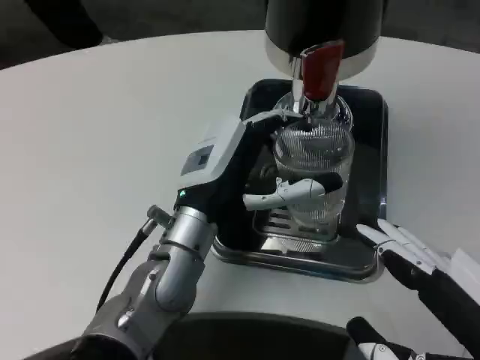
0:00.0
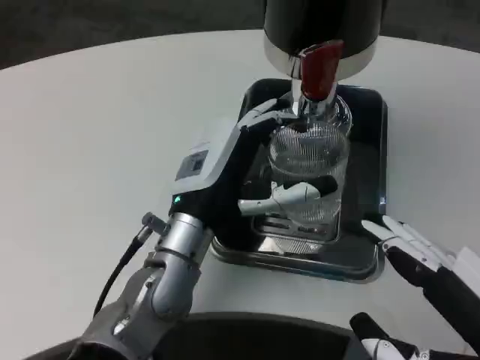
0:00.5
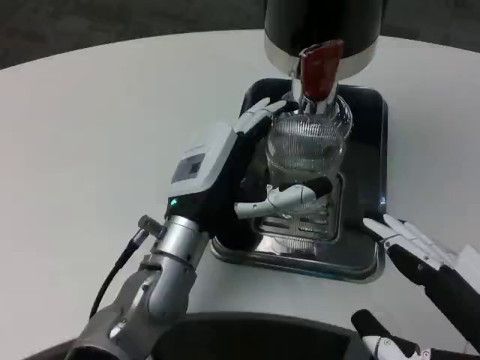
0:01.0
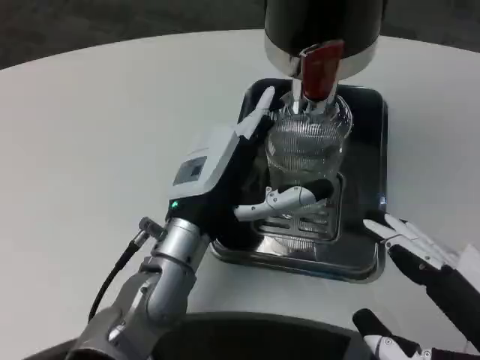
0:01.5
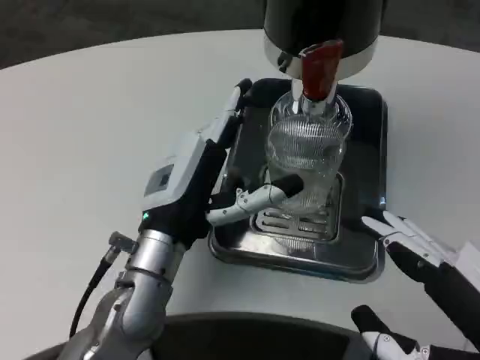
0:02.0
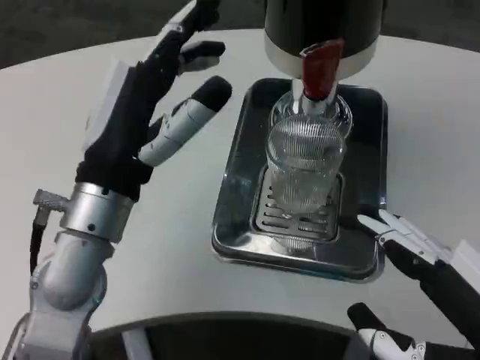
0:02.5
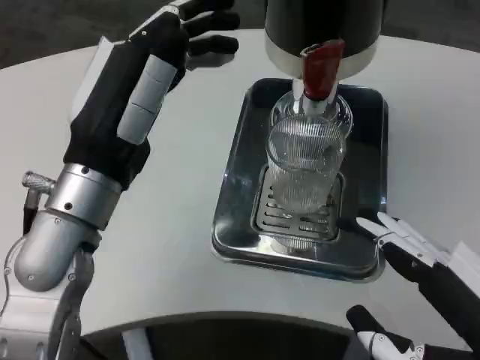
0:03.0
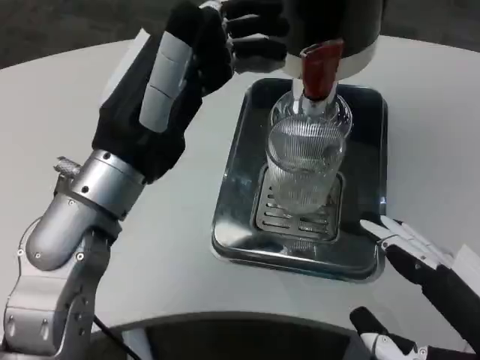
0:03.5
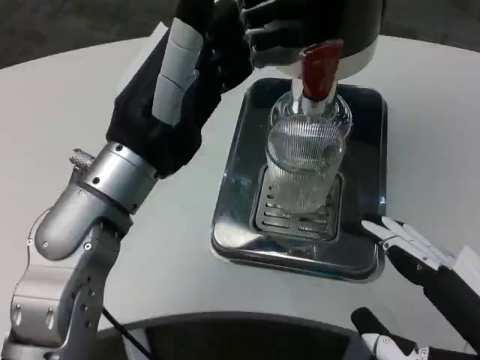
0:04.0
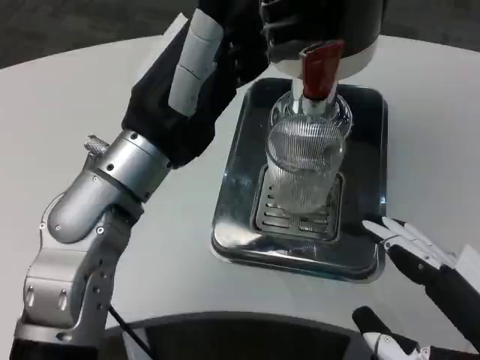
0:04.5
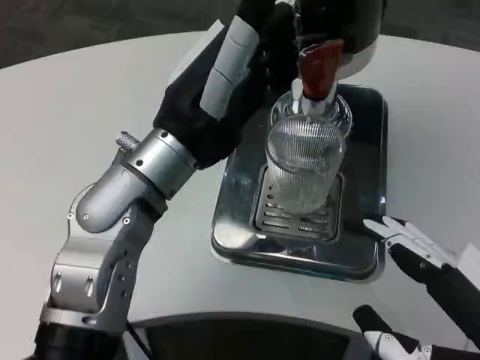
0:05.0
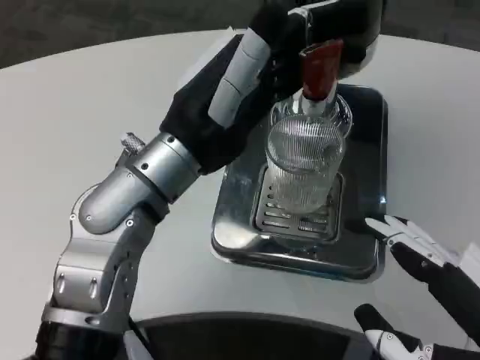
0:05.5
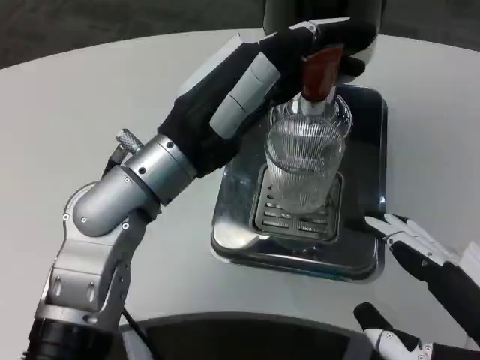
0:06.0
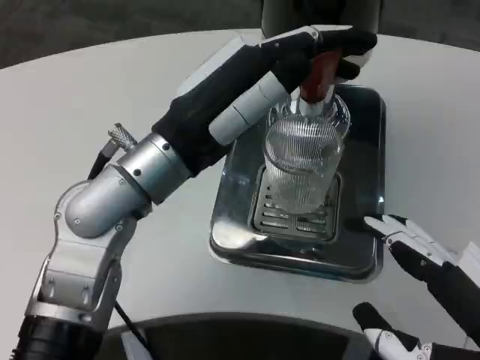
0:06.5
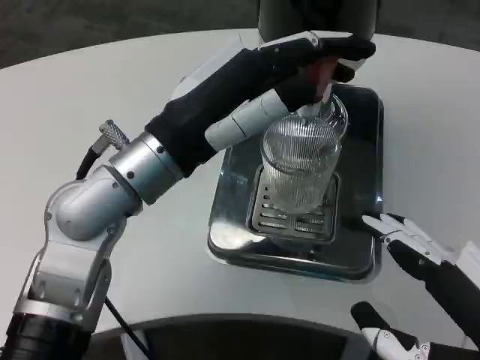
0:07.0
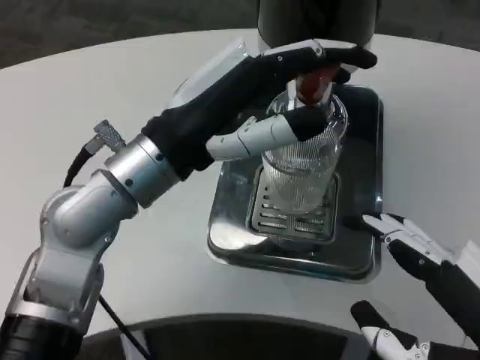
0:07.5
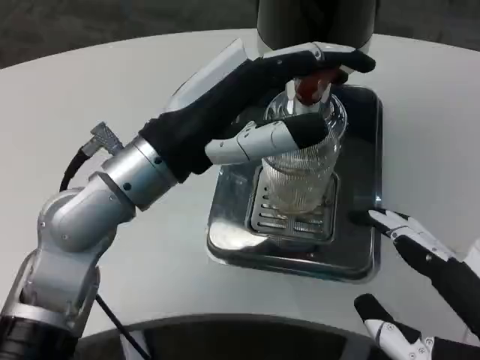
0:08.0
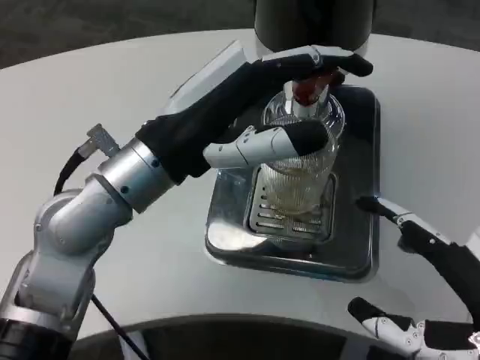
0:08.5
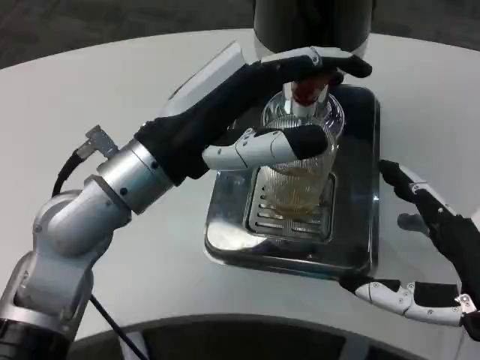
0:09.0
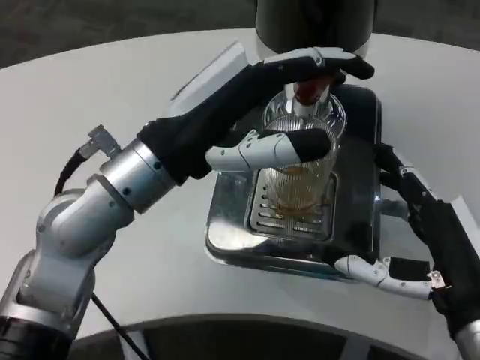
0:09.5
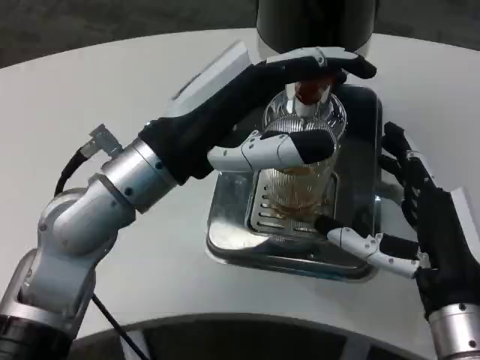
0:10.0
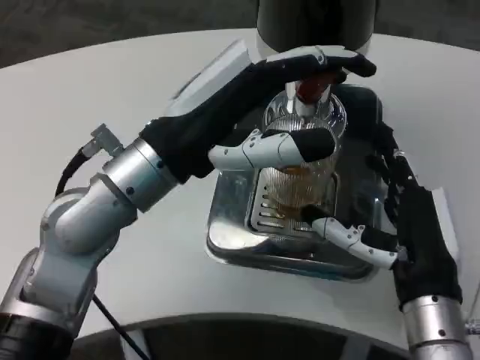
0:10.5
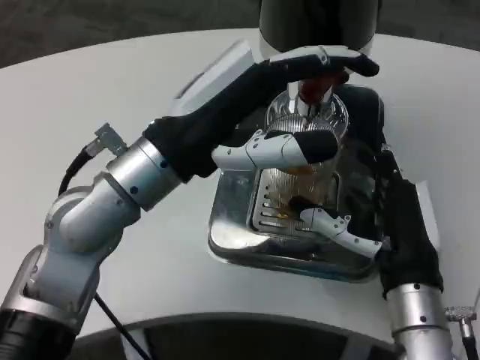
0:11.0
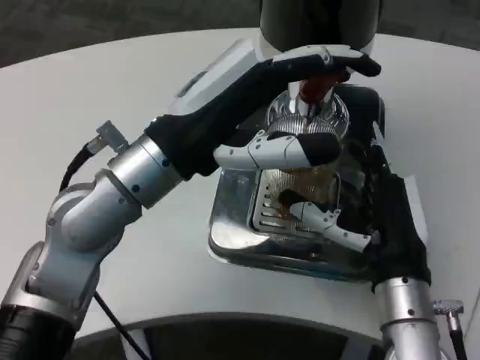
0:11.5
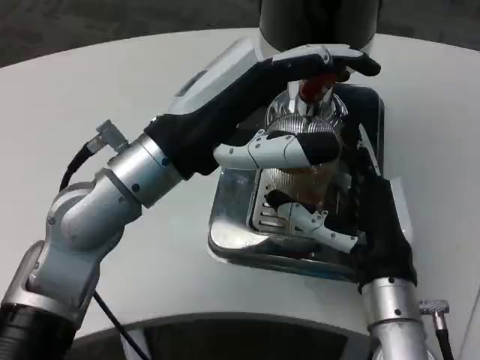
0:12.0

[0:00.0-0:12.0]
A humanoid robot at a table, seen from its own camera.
Task of the whole recording: Grasp the cup under the faucet to collect the drink, then remove the cup.
0:02.0 to 0:04.0: The left hand heads upward, covering approximately 10 cm.
0:08.0 to 0:10.0: The right hand moves forward and downward, about 15 cm.
0:10.0 to 0:12.0: The right hand ends up some 5 cm from where it was.

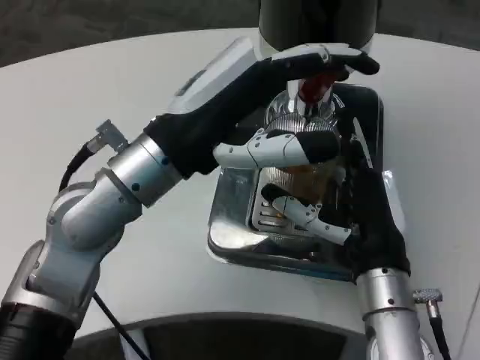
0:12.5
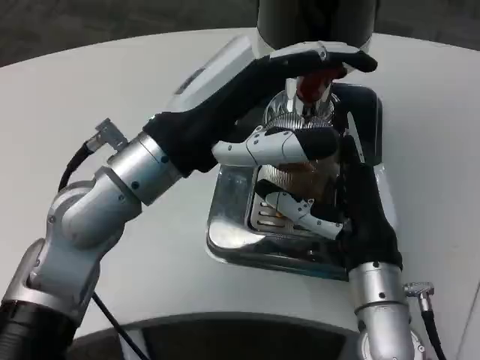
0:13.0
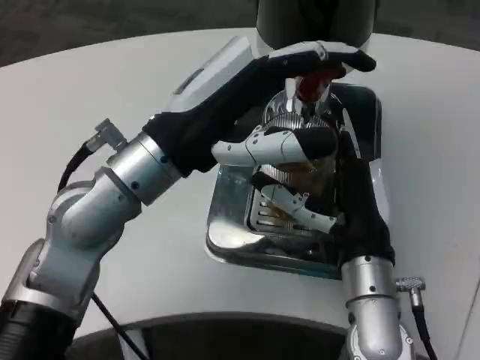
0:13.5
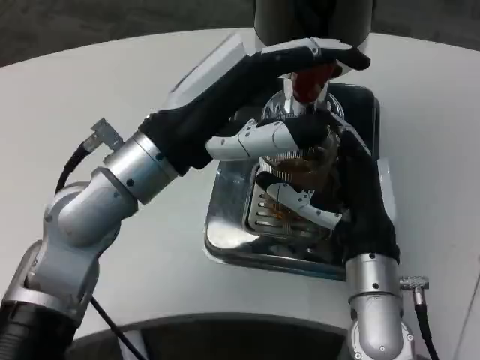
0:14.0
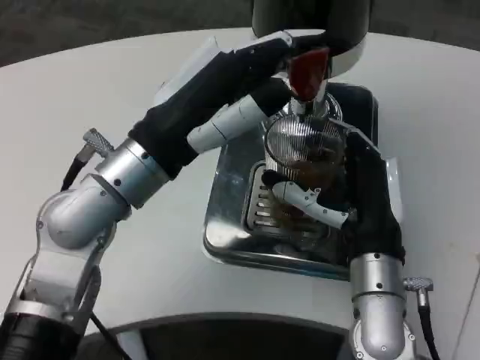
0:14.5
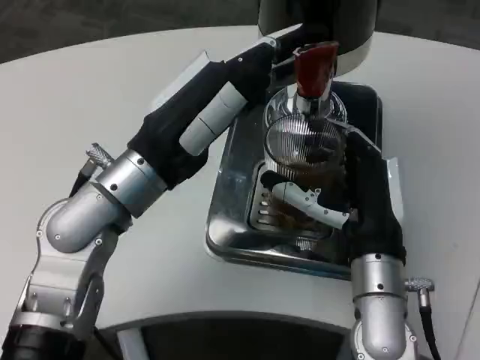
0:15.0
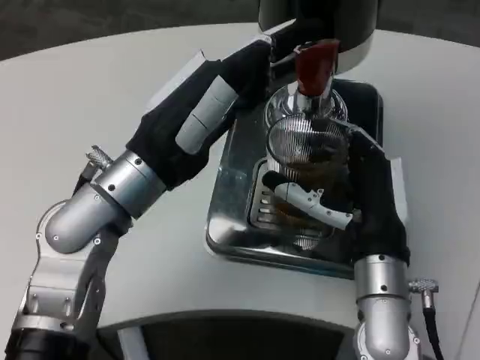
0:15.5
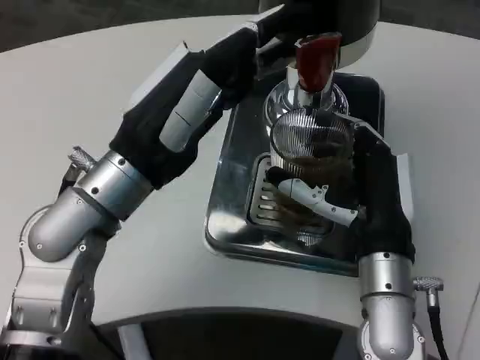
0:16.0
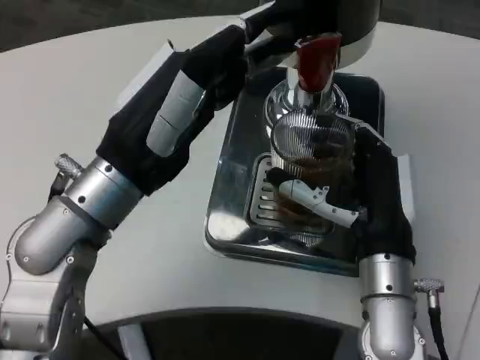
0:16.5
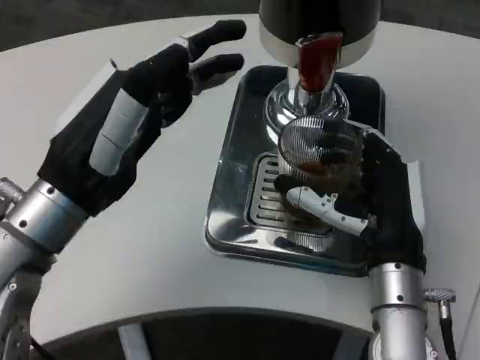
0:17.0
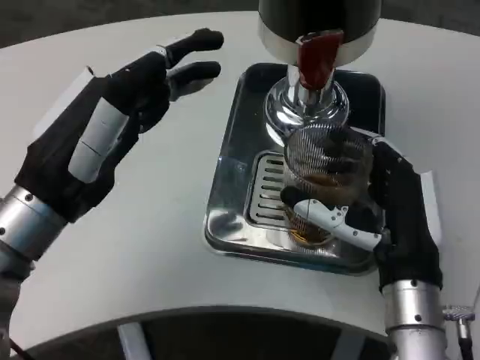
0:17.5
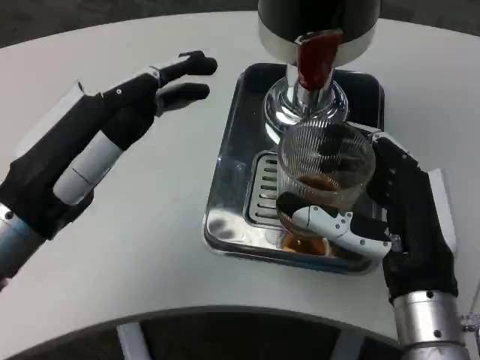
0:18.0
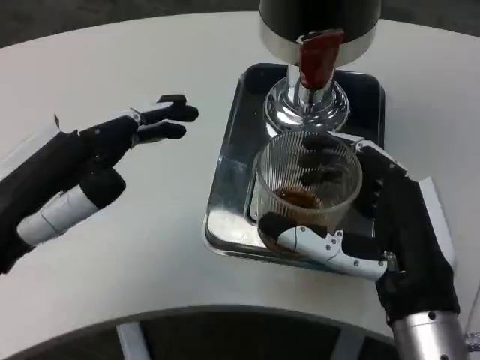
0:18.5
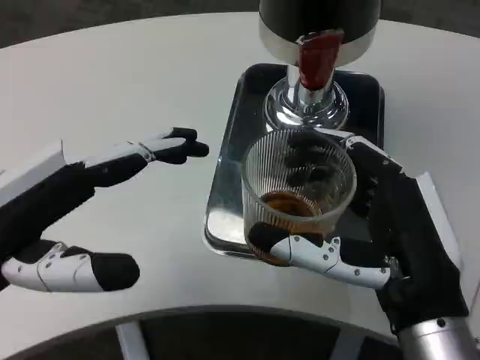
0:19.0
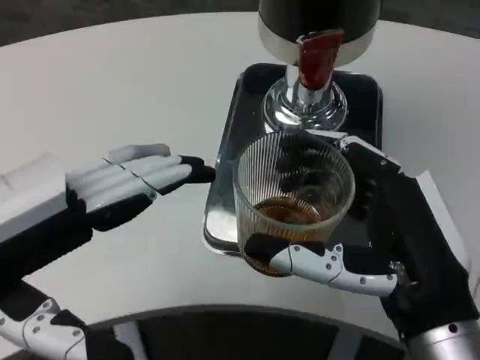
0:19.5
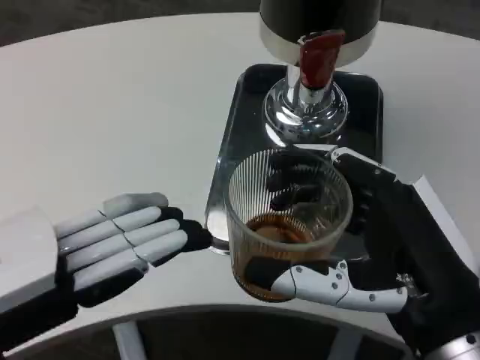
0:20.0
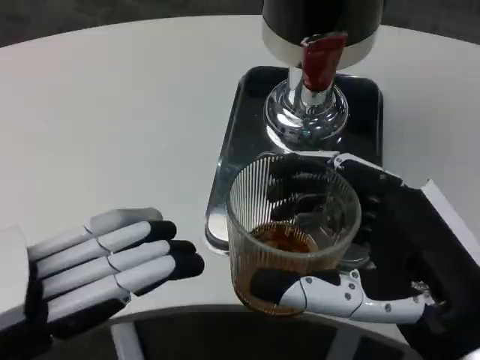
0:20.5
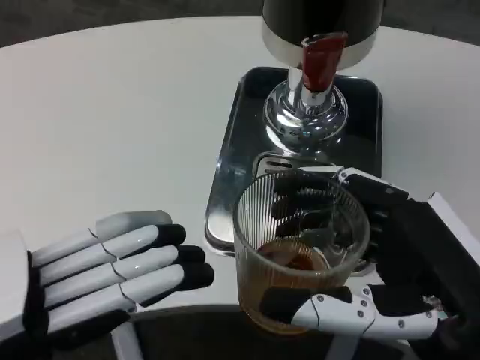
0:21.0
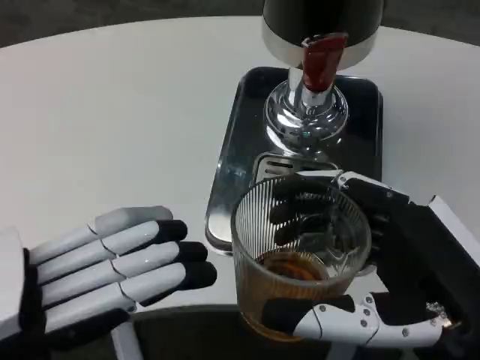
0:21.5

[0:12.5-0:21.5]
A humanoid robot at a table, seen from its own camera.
Task of the whole recording: Grasp the cup under the faucet to collect the drink, then remove the cup.
0:14.5 to 0:17.0: The left hand shifts about 5 cm to the left.
0:17.0 to 0:19.5: The left hand moves backward and to the left, roughly 10 cm; the right hand shifts some 10 cm backward and upward.
0:19.5 to 0:21.5: The right hand changes place by roughly 5 cm.

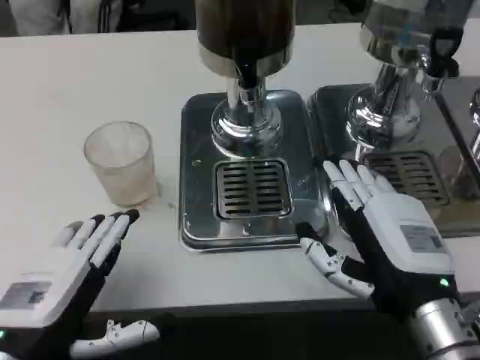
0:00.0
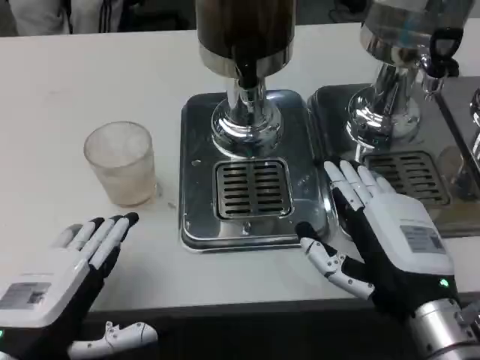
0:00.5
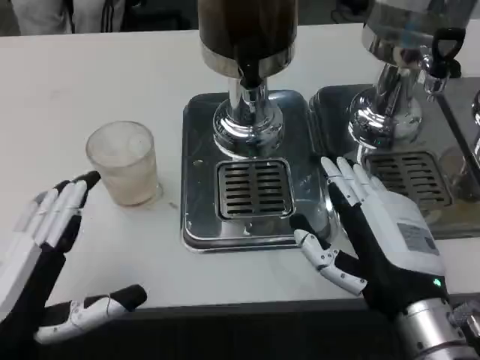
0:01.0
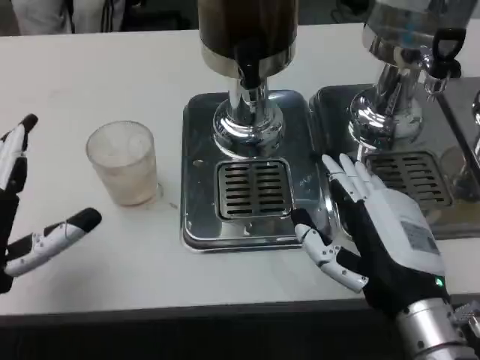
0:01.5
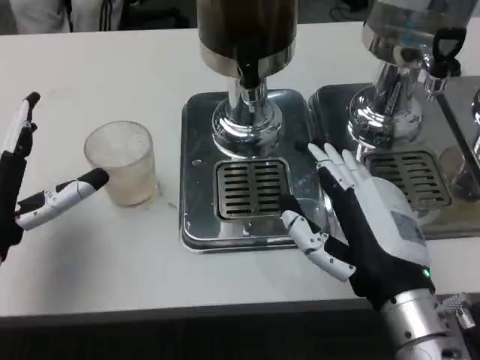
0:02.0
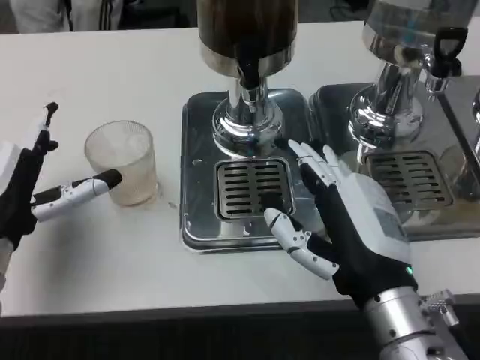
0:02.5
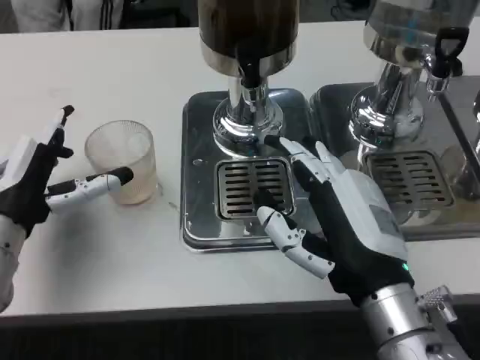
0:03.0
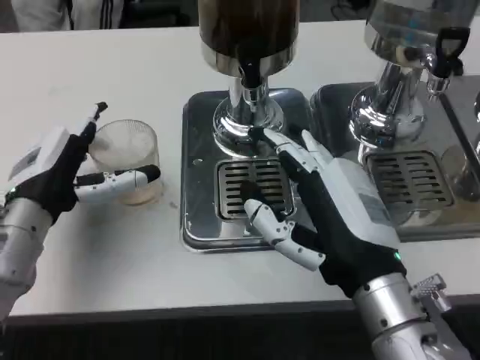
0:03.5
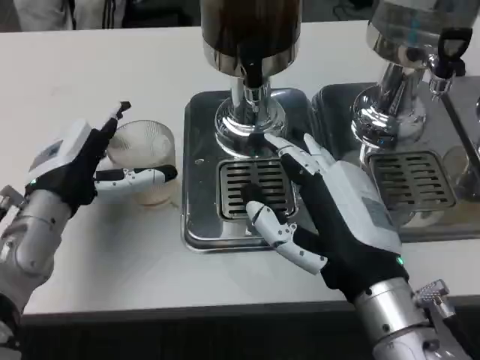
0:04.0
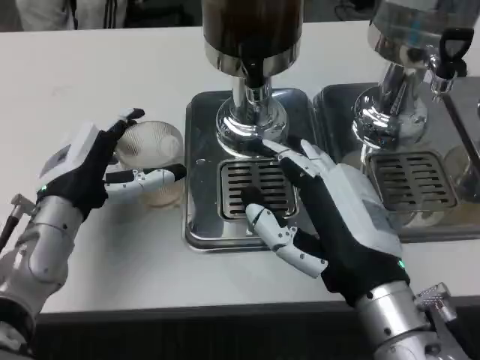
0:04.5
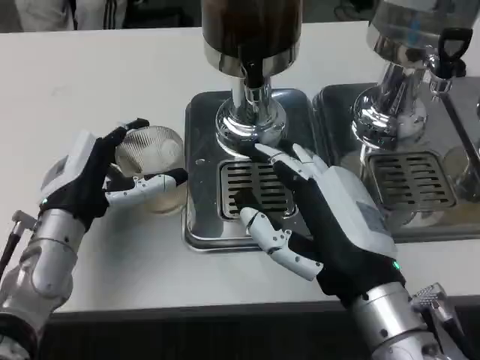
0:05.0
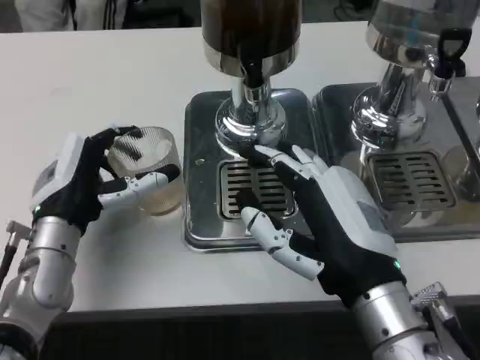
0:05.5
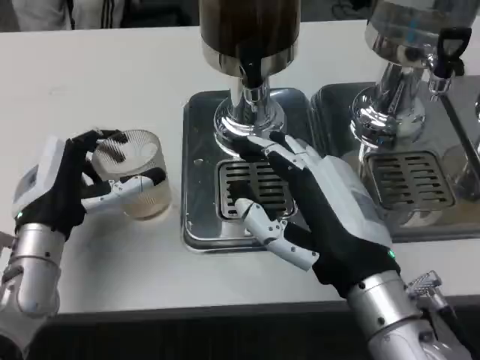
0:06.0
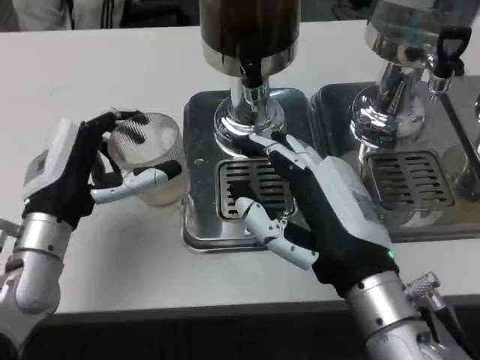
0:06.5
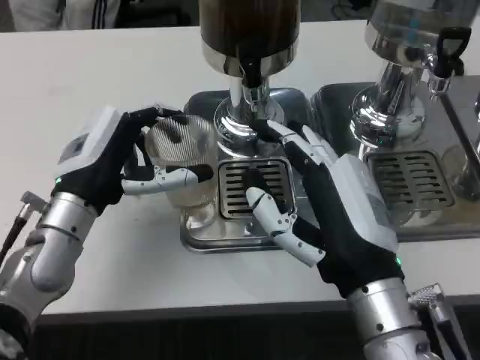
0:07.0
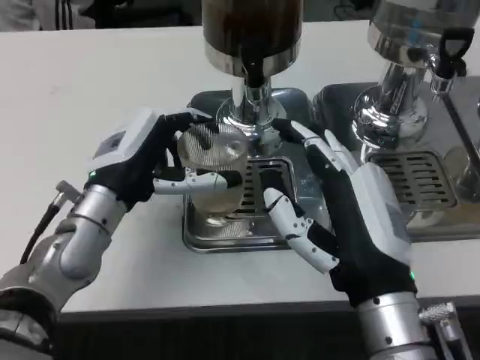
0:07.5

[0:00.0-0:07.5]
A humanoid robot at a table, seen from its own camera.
Task of the whole recording: Grasp the cup under the faucet to collect the drink, then remove the cup.
0:00.0 to 0:02.0: The left hand moves forward, about 10 cm.
0:02.0 to 0:04.0: The left hand shifts about 5 cm forward.
0:04.0 to 0:05.5: There are only small adjustments of the hands.
